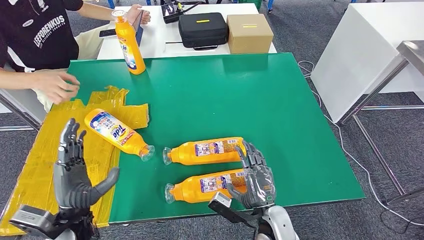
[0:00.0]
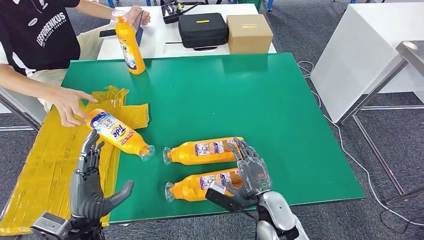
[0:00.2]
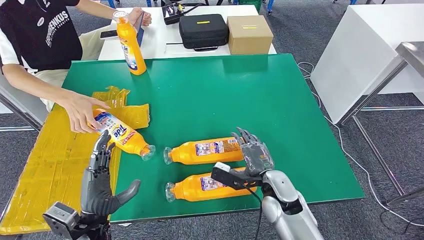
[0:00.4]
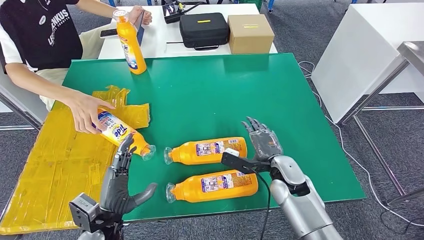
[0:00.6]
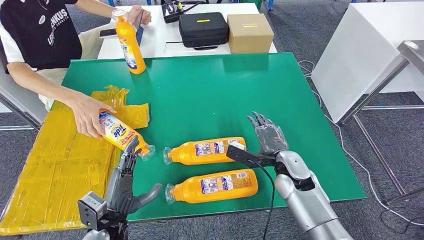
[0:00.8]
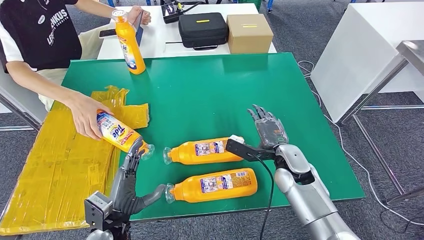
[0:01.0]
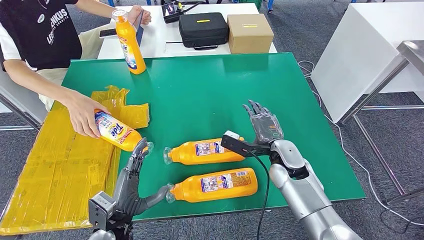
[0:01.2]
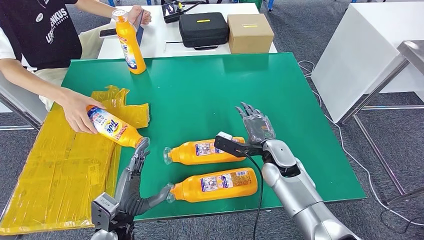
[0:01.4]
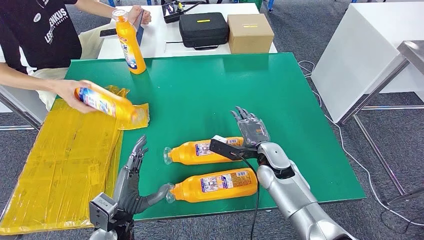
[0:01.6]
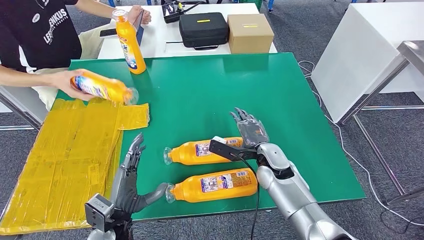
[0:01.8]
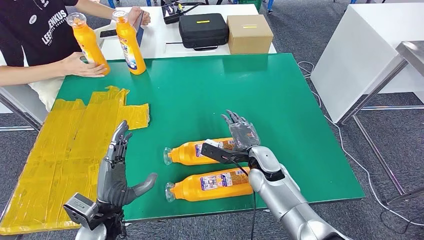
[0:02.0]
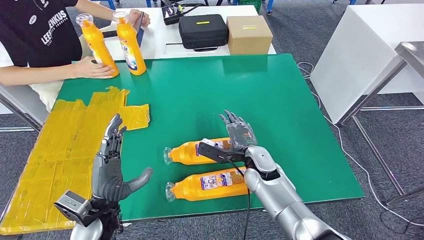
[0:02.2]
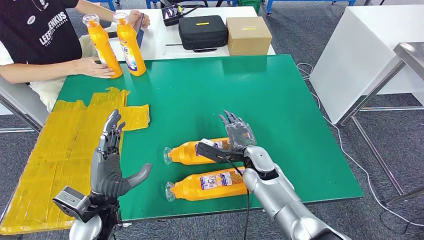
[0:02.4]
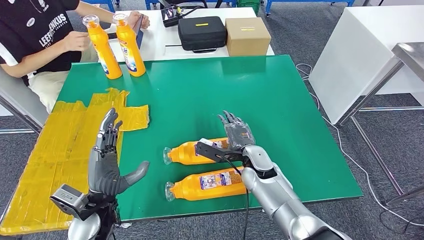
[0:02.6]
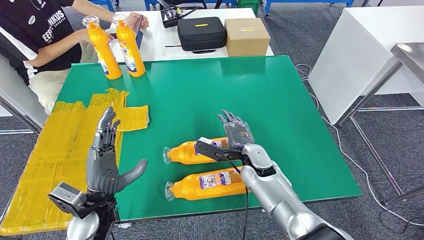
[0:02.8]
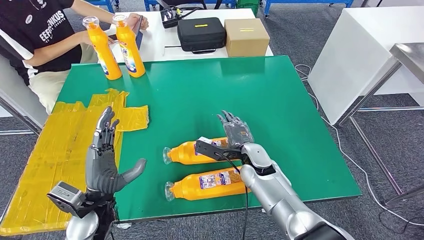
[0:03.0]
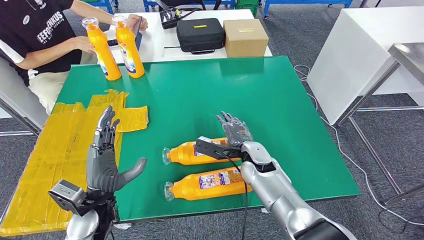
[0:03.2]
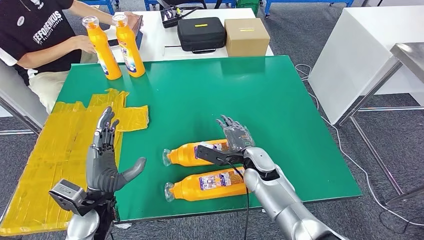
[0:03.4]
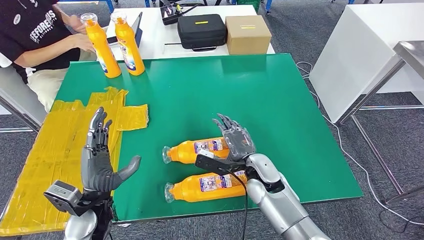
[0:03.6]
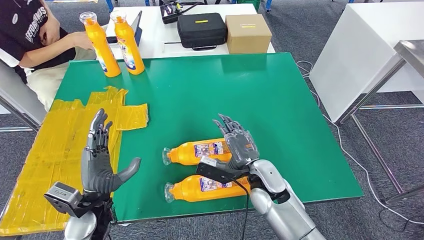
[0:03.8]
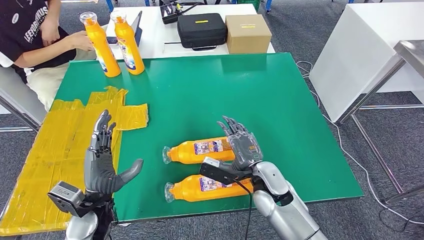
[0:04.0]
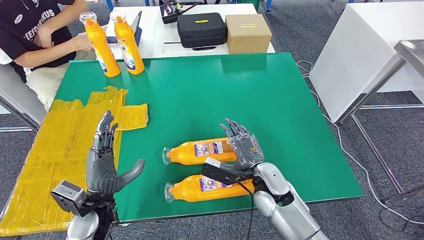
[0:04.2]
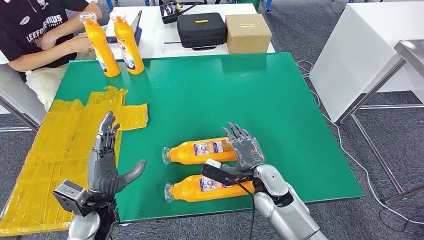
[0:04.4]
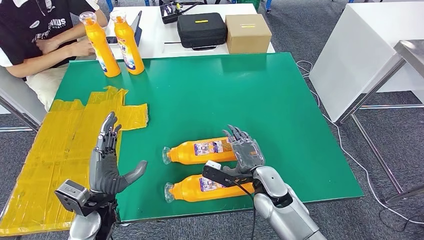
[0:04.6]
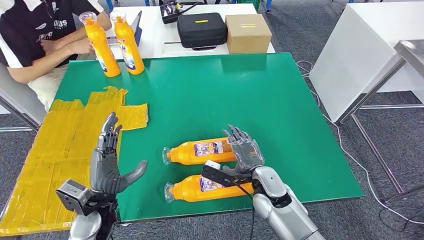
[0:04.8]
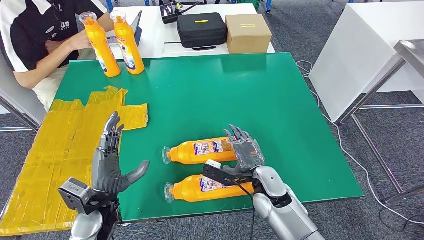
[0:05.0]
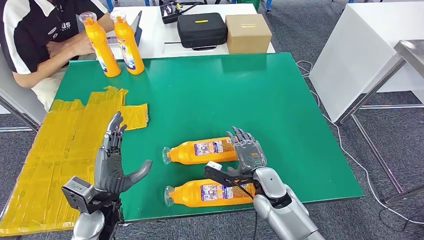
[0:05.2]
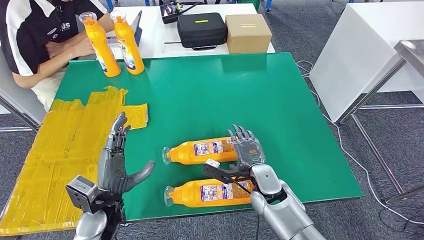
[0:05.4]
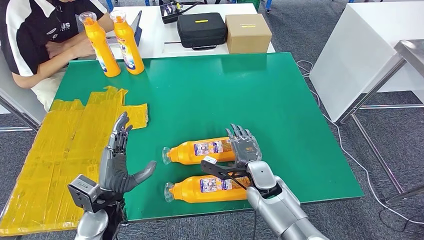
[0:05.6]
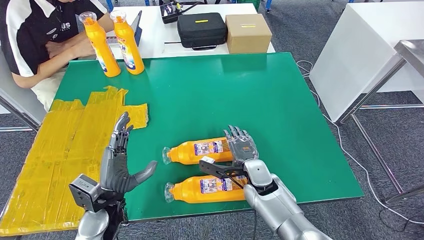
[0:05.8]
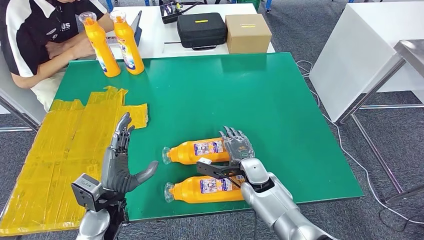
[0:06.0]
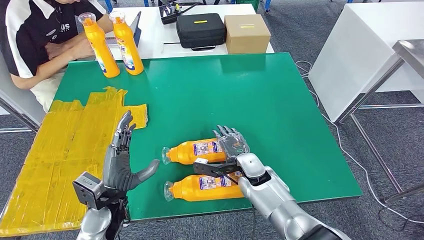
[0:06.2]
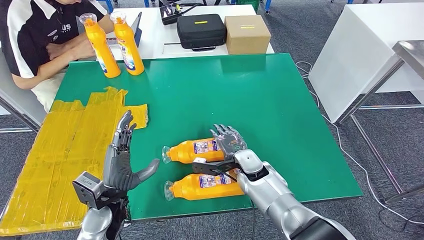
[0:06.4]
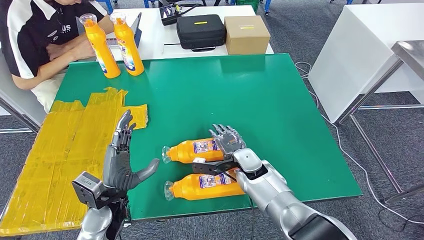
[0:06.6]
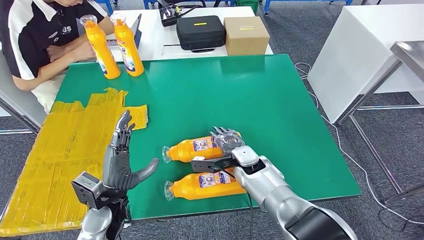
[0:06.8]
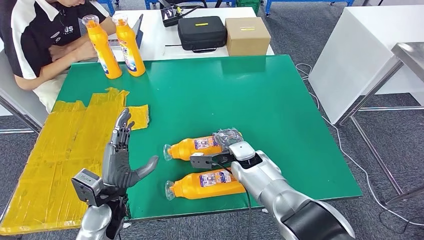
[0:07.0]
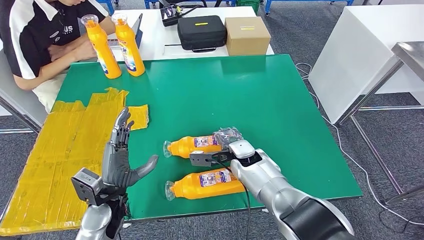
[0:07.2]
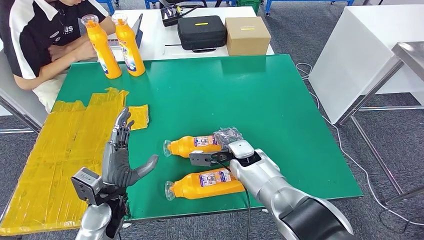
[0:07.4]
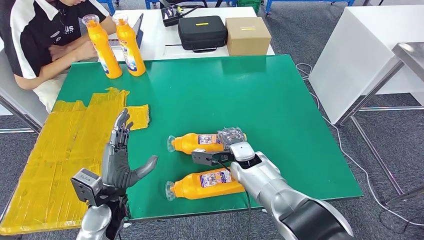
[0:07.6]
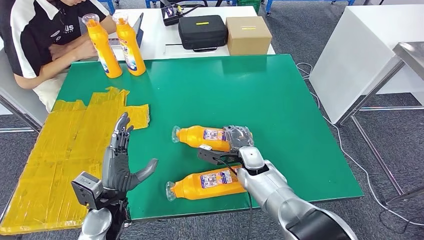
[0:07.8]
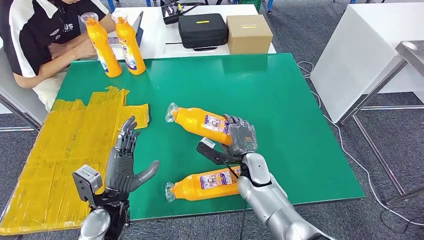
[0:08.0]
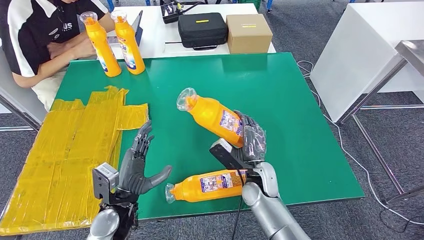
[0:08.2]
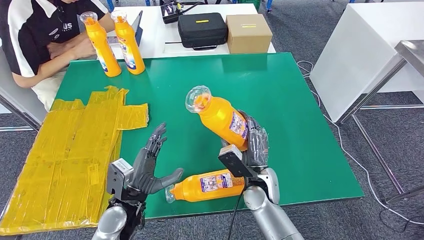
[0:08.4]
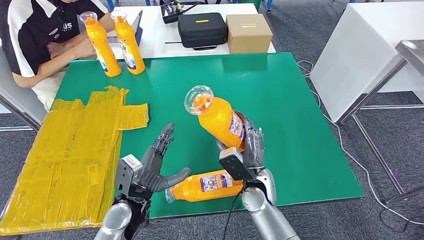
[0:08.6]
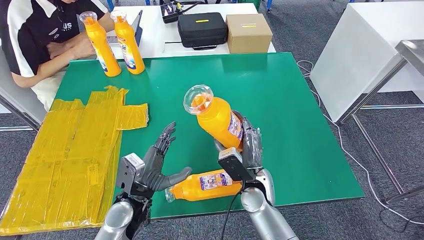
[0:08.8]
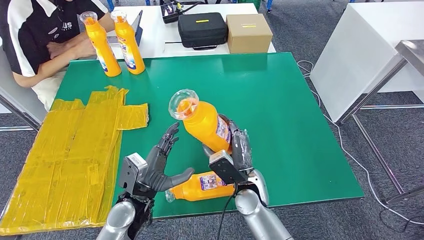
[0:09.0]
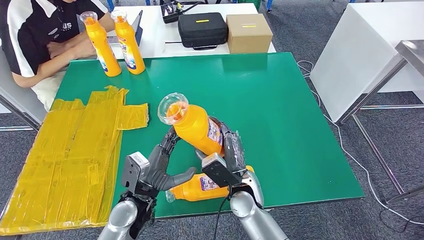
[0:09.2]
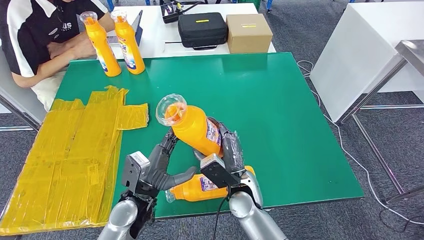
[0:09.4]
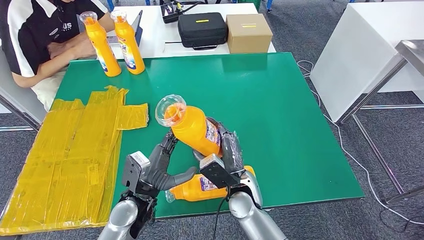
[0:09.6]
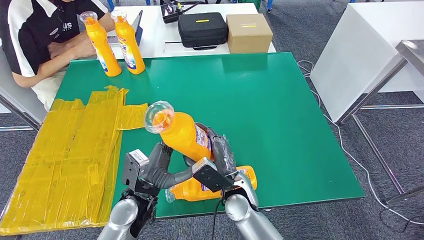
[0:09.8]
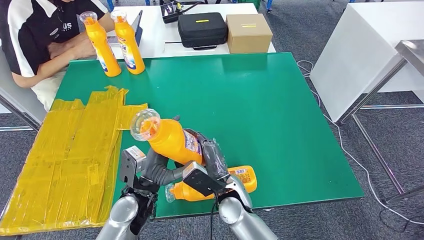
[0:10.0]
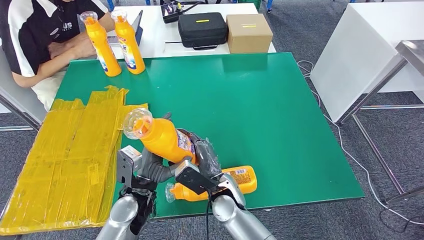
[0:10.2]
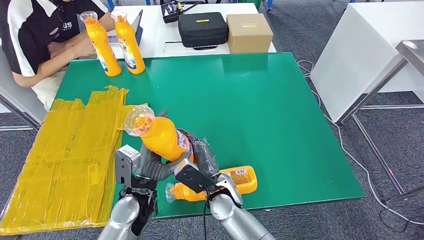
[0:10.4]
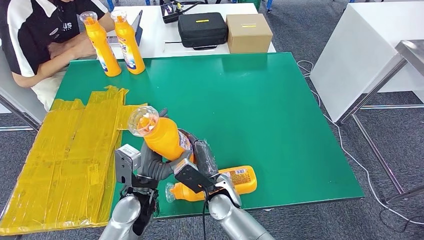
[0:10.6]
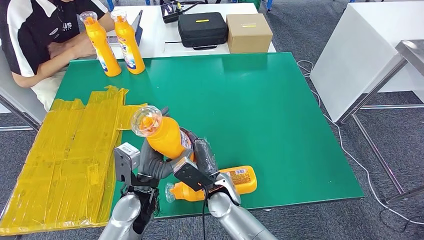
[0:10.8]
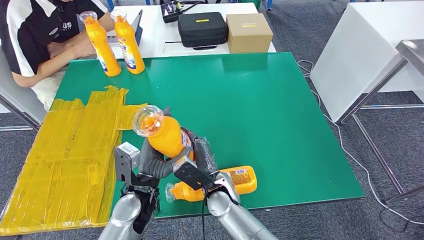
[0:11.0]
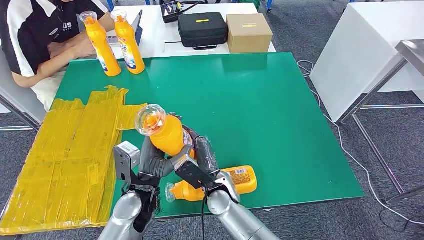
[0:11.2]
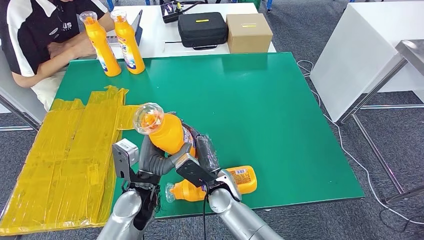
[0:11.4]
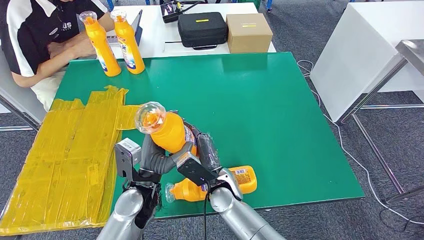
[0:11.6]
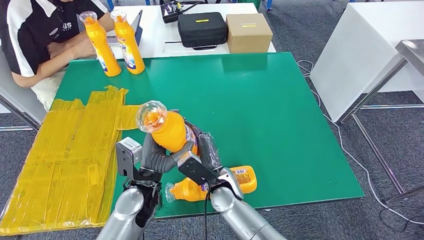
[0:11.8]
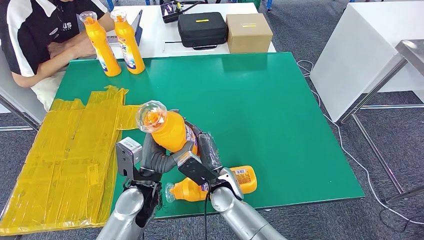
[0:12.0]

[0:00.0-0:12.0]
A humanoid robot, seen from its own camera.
Step, 0:00.0 to 0:10.4: Pick up the bottle from the table.
0:04.4 to 0:06.0: The right hand shifts by some 5 cm.
0:09.0 to 0:10.4: The right hand goes roughly 5 cm to the left.
0:10.4 to 0:12.0: The hands make only small movements.

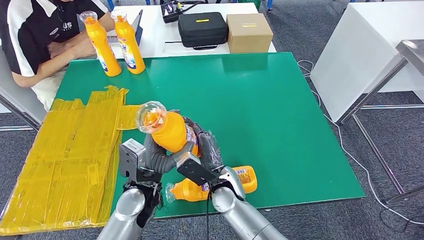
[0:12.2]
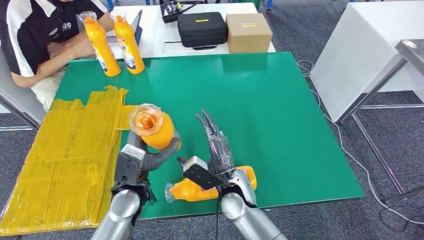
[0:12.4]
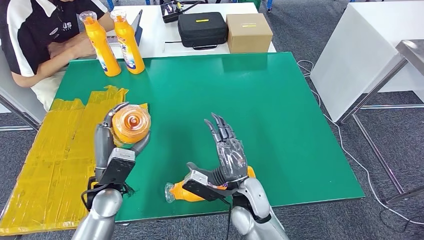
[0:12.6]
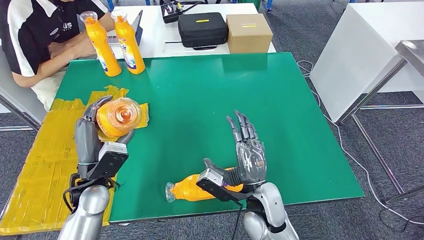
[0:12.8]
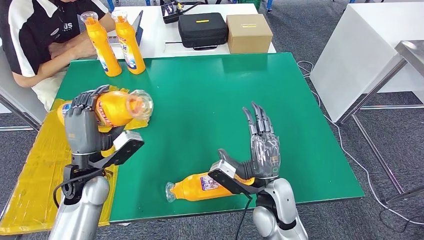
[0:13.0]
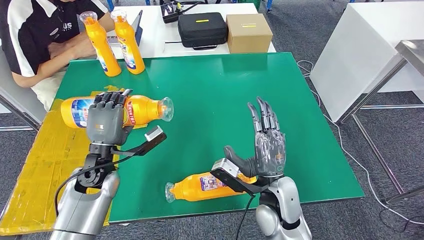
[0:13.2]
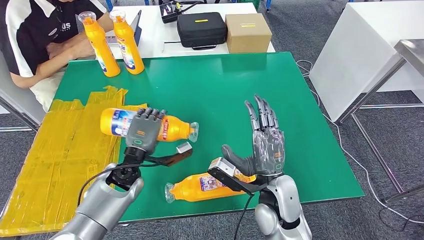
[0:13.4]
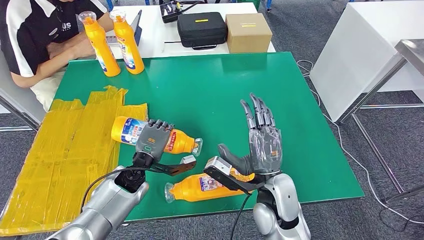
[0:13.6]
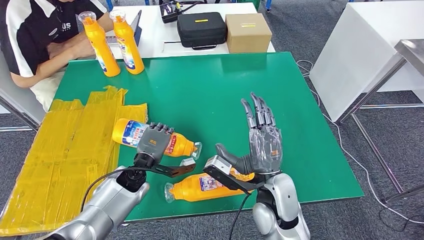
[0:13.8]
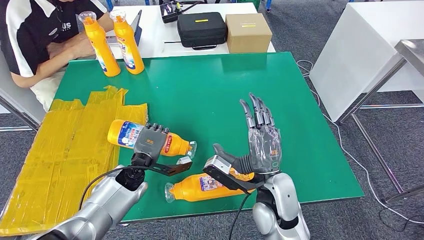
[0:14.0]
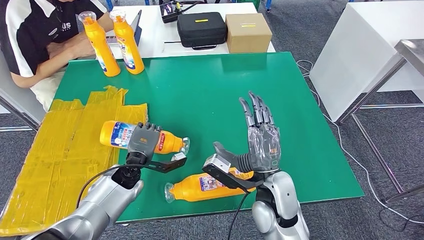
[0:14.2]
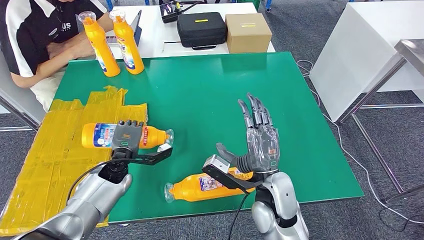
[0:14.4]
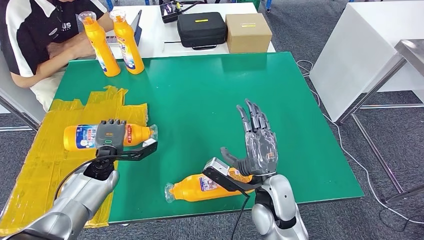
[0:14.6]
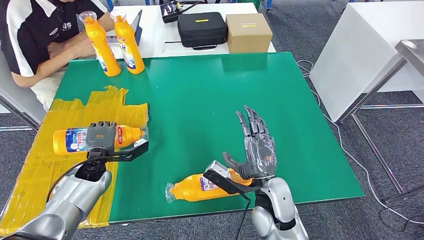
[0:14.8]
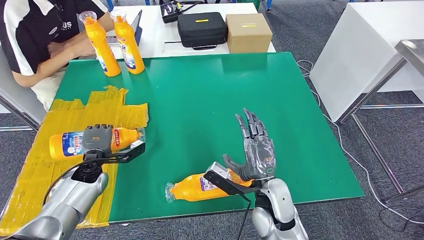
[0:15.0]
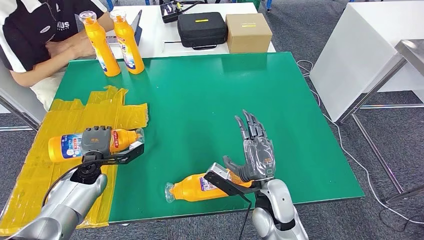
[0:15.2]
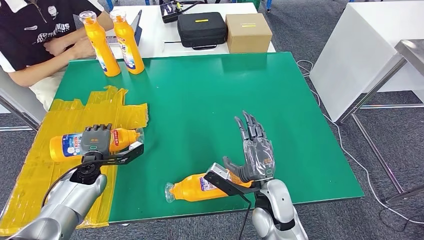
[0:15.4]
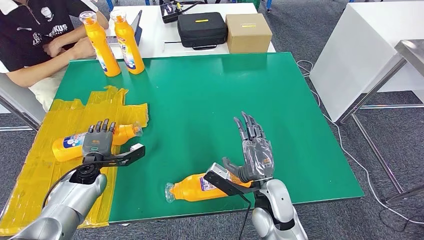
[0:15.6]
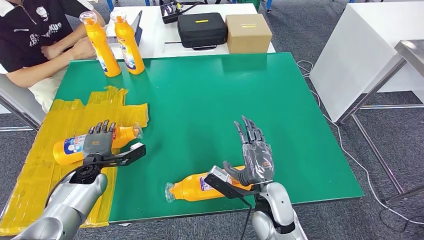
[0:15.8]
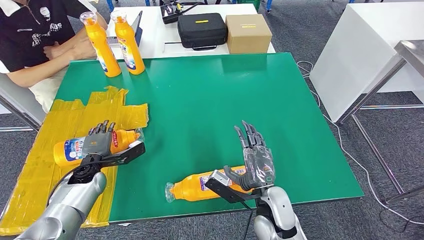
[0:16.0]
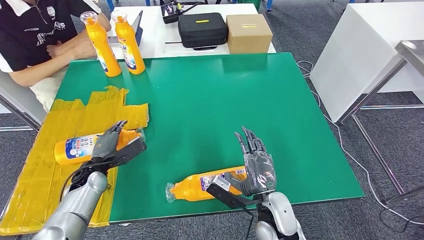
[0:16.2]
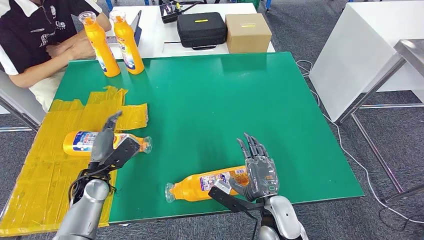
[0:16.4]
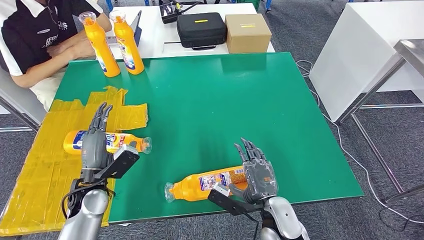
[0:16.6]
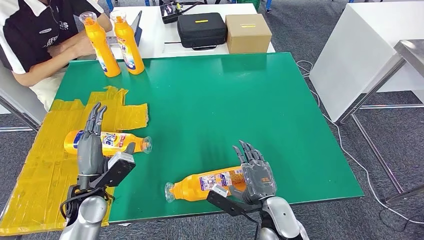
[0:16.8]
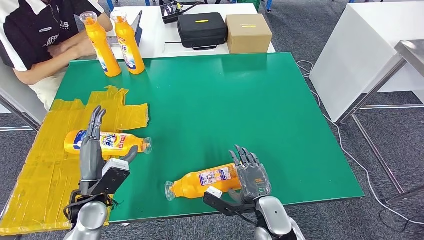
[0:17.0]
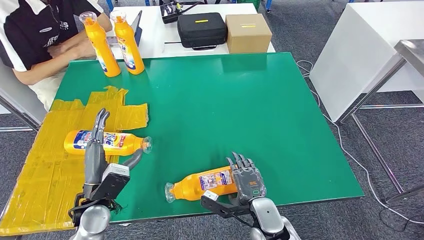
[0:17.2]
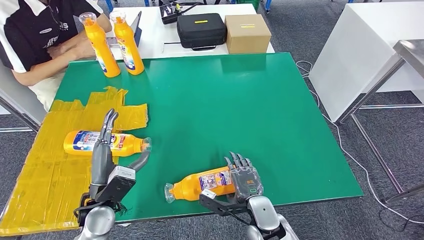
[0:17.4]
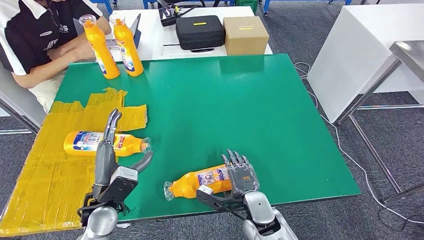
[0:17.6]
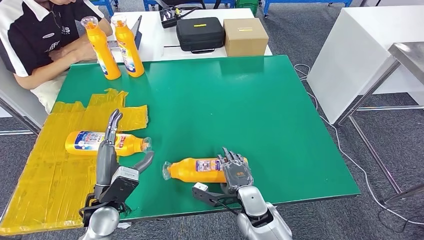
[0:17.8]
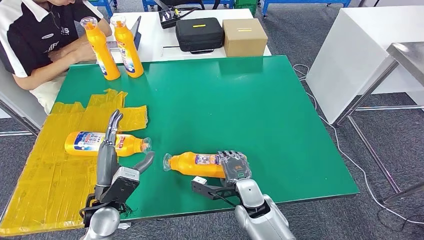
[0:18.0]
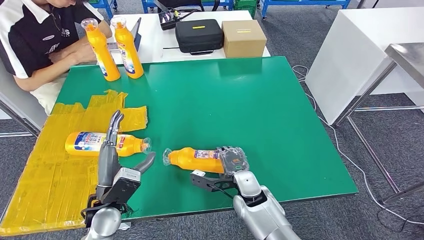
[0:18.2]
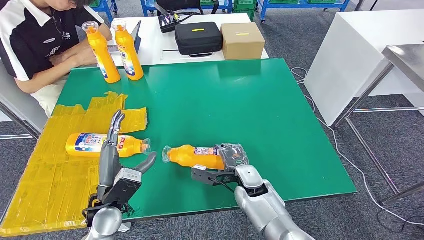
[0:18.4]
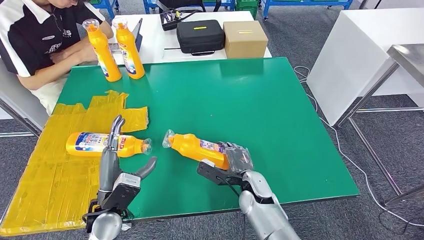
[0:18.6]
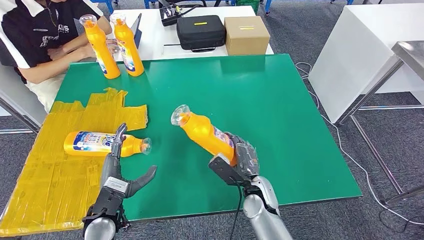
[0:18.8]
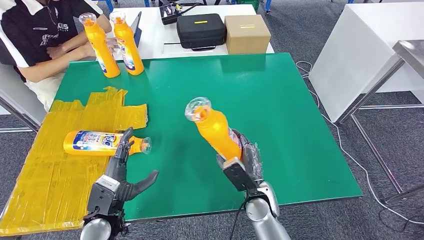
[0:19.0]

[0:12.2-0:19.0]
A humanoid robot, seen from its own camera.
Step, 0:12.2 to 0:16.0: Flip the bottle to face forward.
0:12.2 to 0:13.6: The left hand travels forward by about 5 cm, and reaches approximately 10 cm to the left, then returns; the right hand moves to the right, upward and backward, approximately 15 cm.
0:13.6 to 0:15.0: The left hand is displaced to the left by about 15 cm.
